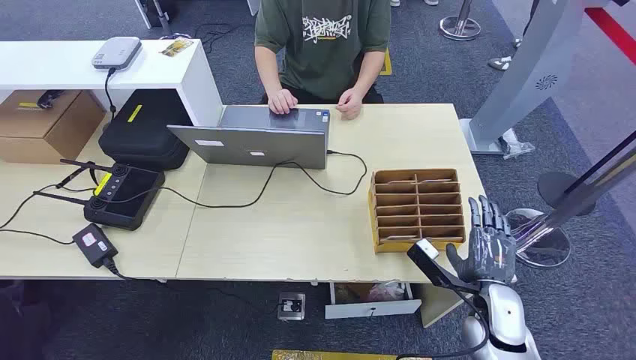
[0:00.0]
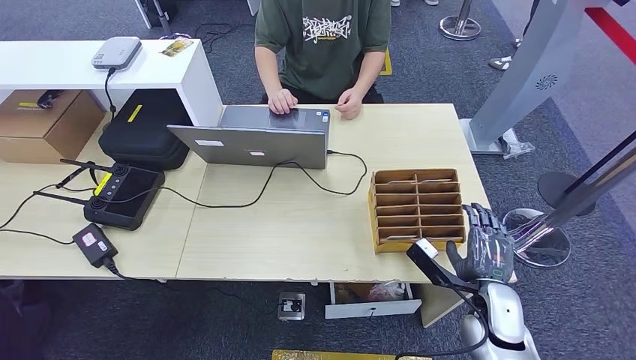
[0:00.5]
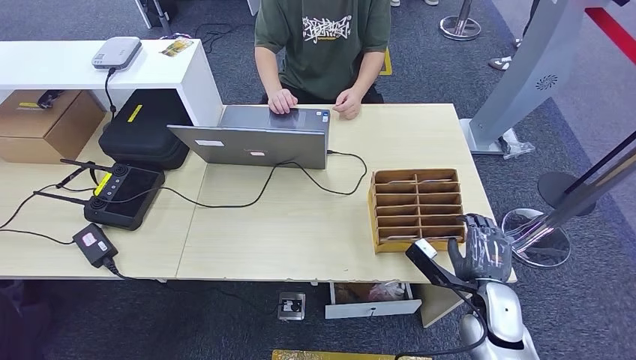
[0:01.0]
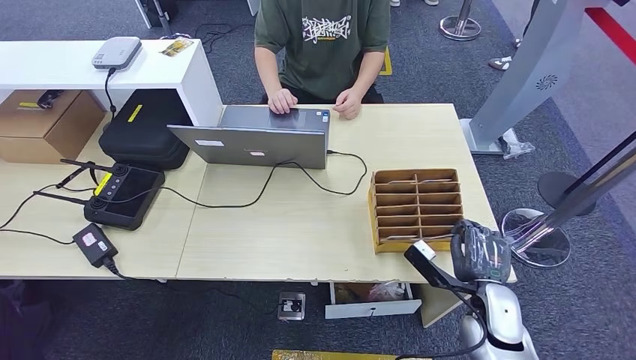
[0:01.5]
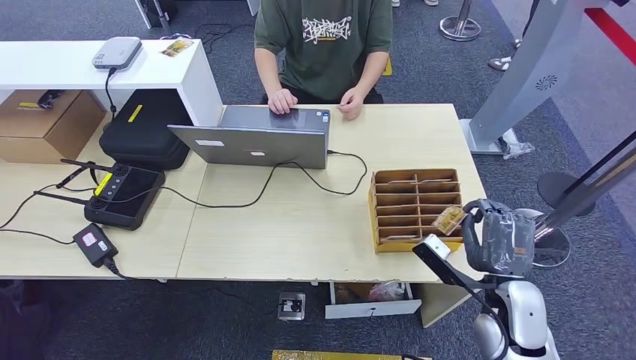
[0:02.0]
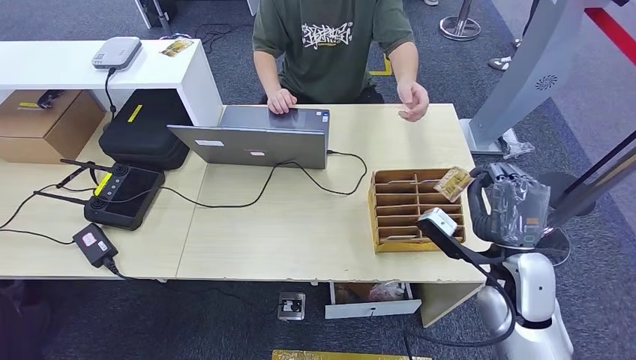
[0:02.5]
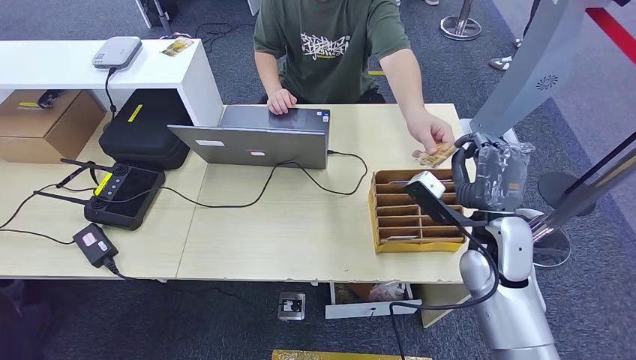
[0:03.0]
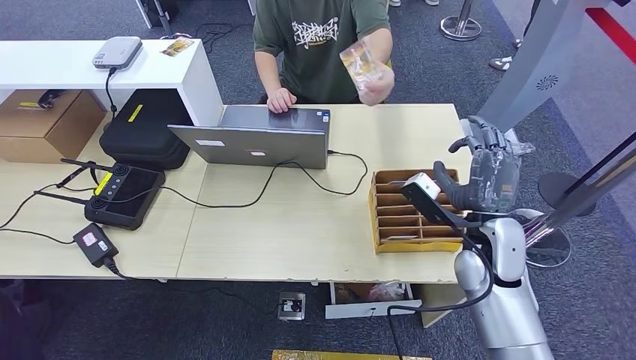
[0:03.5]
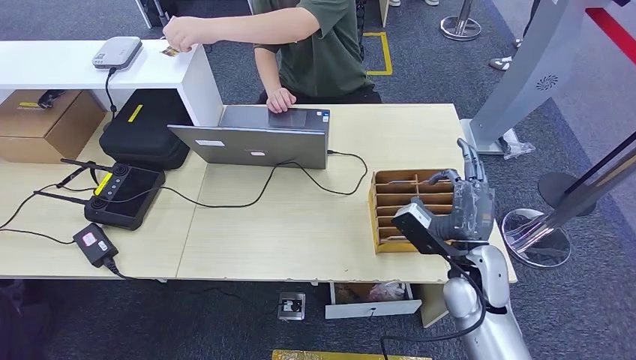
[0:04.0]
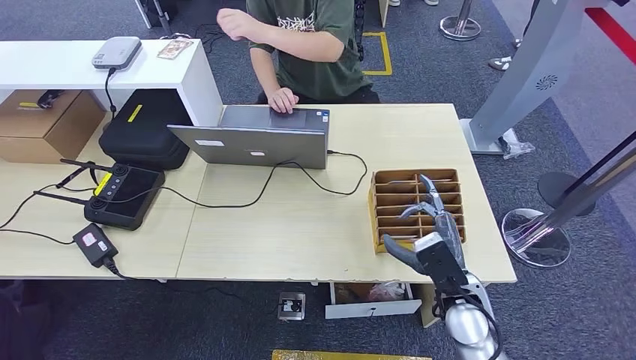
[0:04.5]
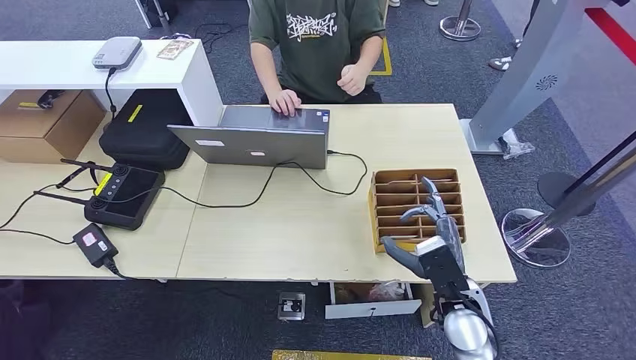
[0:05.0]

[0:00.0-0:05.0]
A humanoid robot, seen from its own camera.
Step, 0:00.0 to 0:01.5: Pick up the room card from the card holder.
Step, 0:02.5 to 0:04.5: Hand the room card to the target.
0:02.5 to 0:05.0: The right hand shifts approximately 10 cm downward and to the left.
